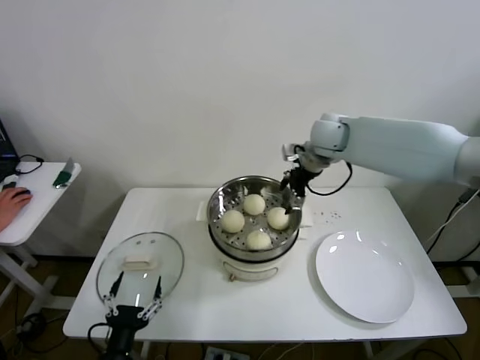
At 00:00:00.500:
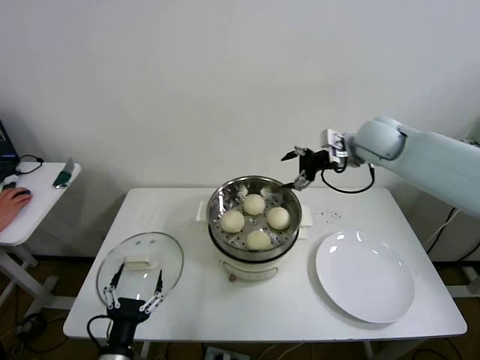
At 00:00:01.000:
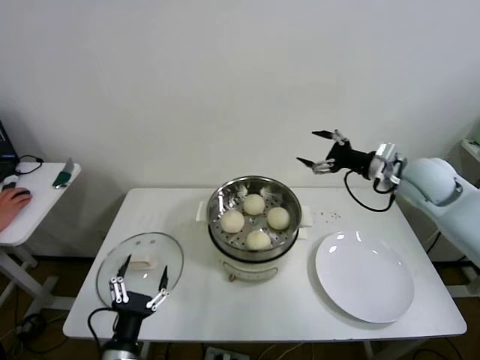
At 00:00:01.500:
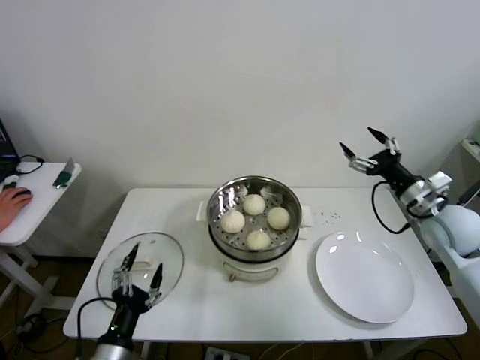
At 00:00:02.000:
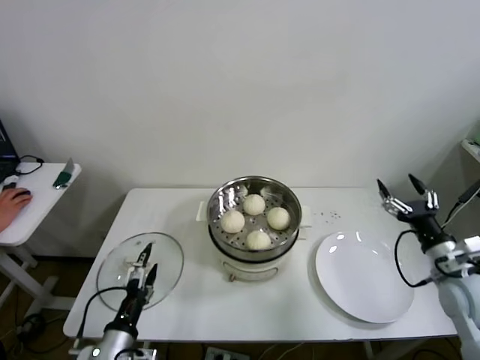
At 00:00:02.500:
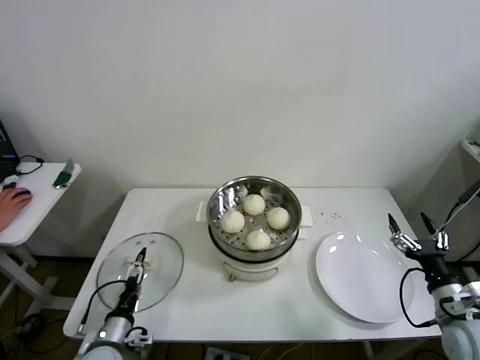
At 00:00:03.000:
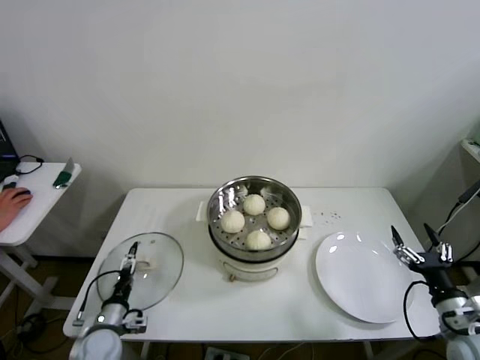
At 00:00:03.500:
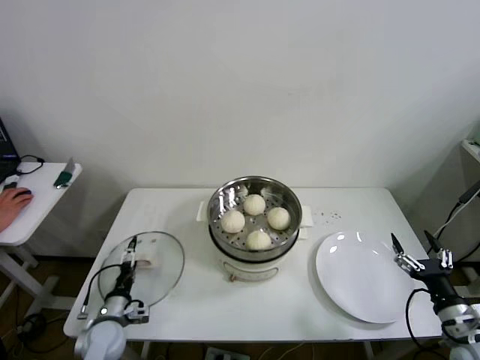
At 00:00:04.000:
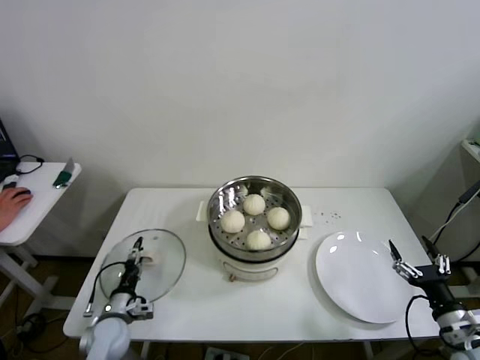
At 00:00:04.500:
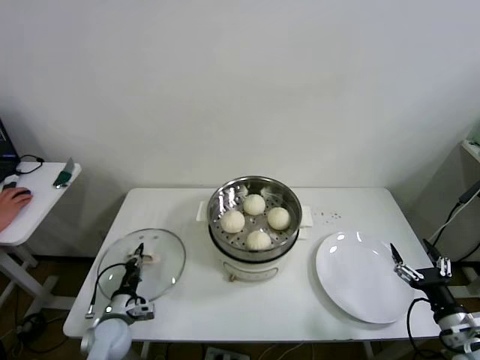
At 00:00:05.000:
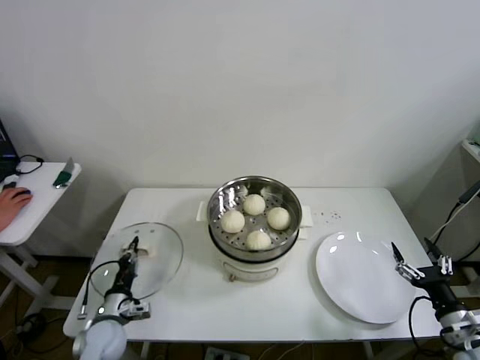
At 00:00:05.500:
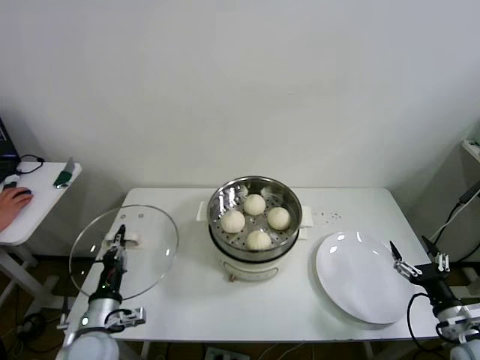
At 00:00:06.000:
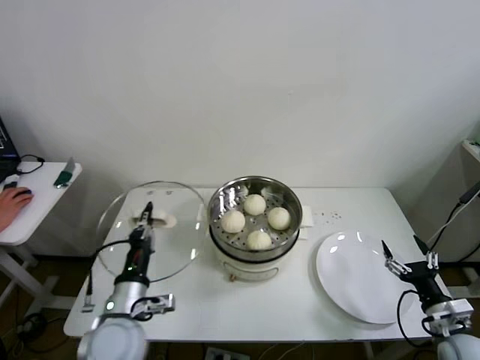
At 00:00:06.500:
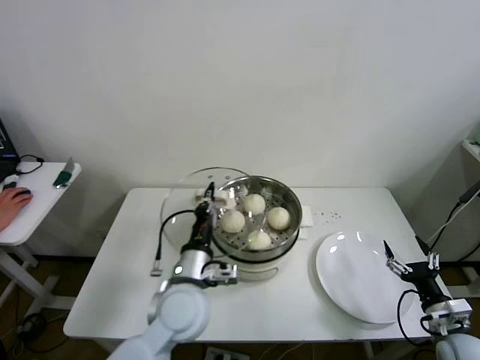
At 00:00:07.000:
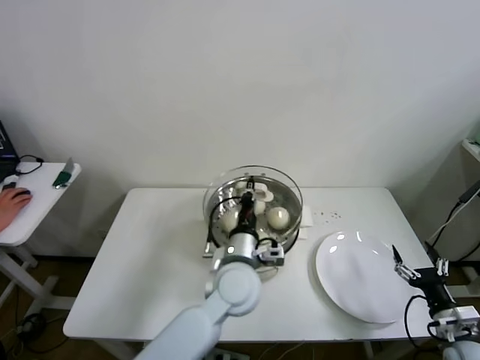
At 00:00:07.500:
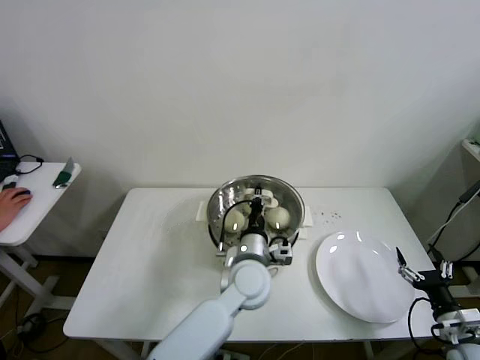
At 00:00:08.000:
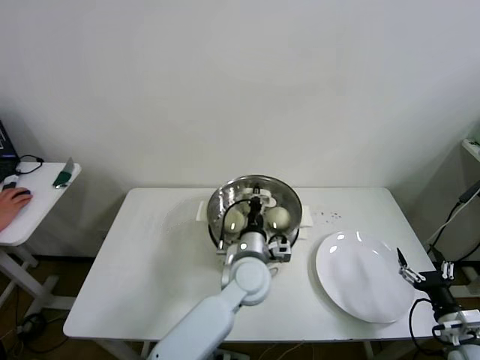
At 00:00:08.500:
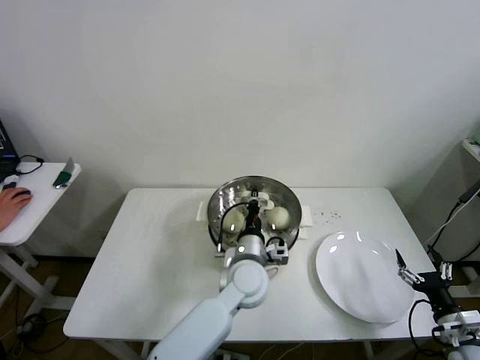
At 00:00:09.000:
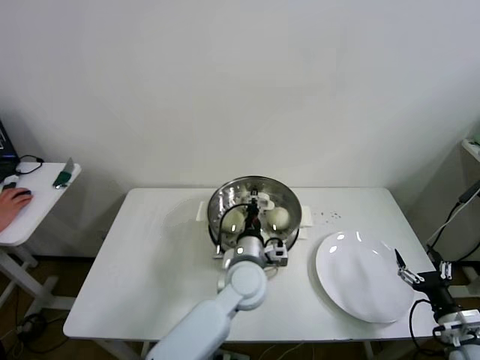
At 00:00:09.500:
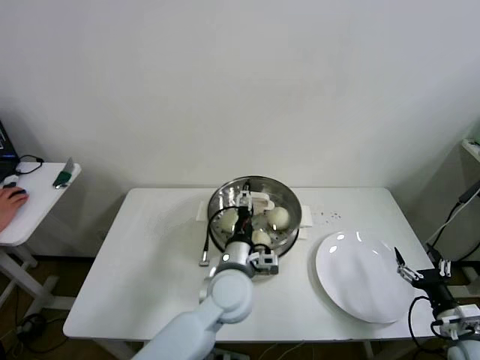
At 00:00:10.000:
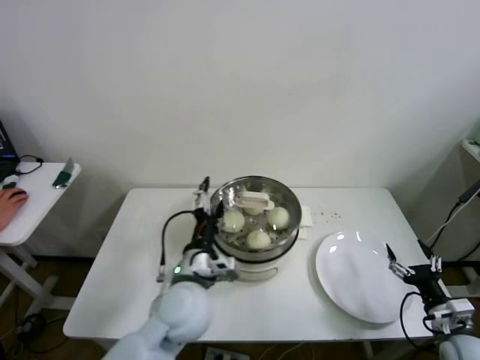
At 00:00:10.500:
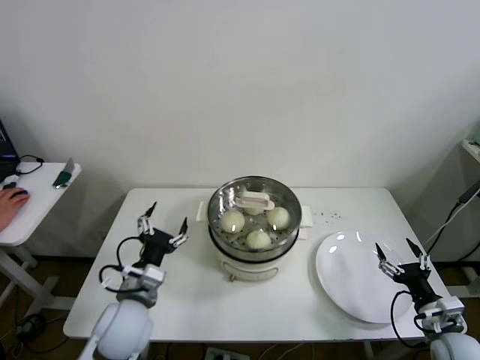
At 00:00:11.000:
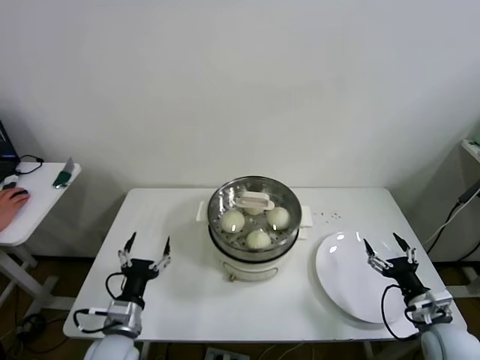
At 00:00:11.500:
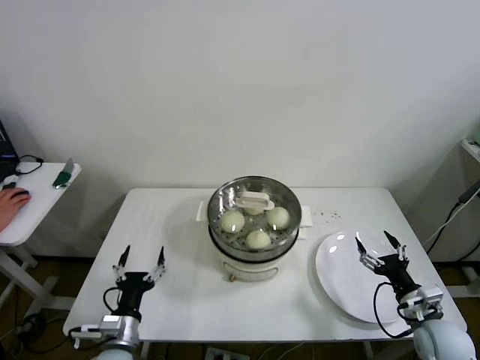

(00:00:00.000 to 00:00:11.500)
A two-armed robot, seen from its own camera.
Step, 00:00:00.000 - 00:00:04.000: Grasp the pot lid with left gripper.
Step, 00:00:04.500 - 00:00:08.500: Place the pot lid on the steamer with left gripper.
00:00:00.000 - 00:00:02.000: The left gripper changes place by roughly 5 cm, while the right gripper travels backward, to the right and downward by about 40 cm.
00:00:02.000 - 00:00:04.000: The right gripper shifts some 15 cm backward and downward. Meanwhile the left gripper moves forward, downward and to the left, roughly 20 cm, and closes.
00:00:04.000 - 00:00:06.000: The left gripper shifts roughly 20 cm upward and to the right, and closes.
00:00:06.000 - 00:00:07.500: The left gripper goes some 30 cm to the right and forward.
00:00:07.500 - 00:00:09.500: The left gripper opens.
00:00:09.500 - 00:00:11.500: The right gripper is displaced to the left by roughly 5 cm. Meanwhile the left gripper heads to the left, backward and downward, covering roughly 30 cm.
